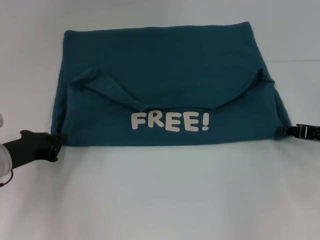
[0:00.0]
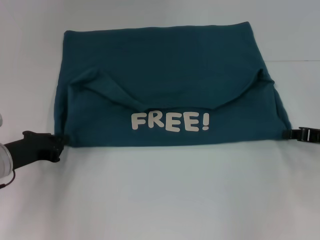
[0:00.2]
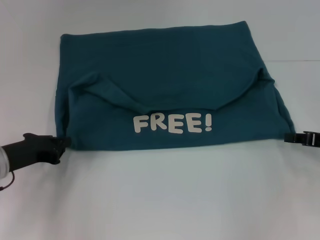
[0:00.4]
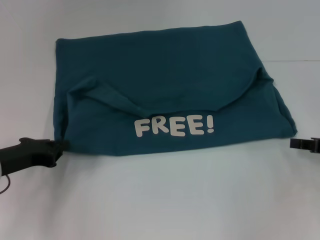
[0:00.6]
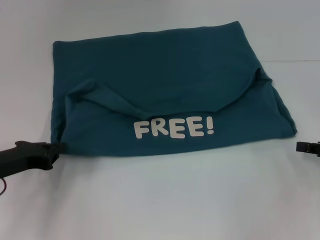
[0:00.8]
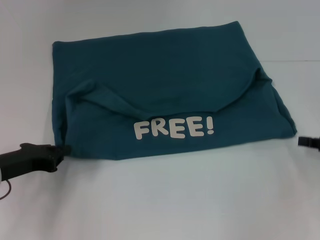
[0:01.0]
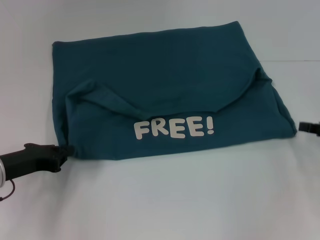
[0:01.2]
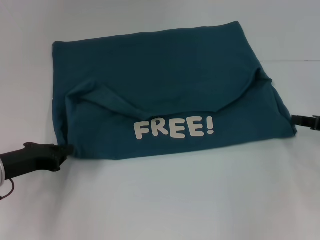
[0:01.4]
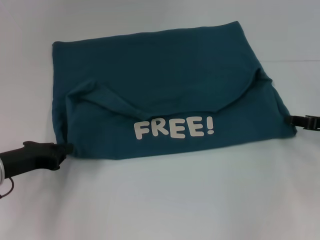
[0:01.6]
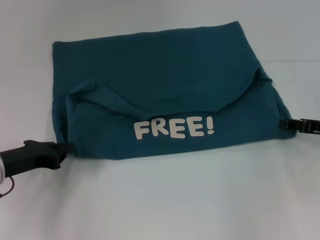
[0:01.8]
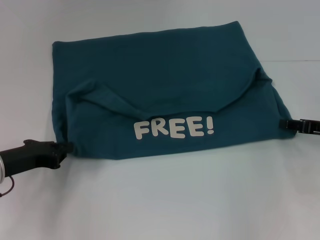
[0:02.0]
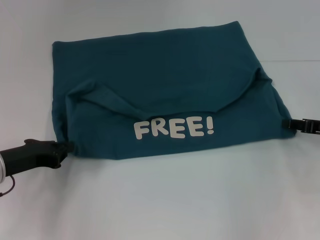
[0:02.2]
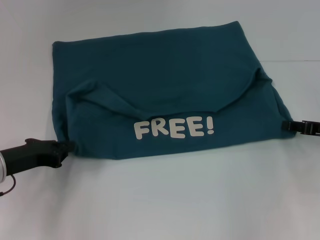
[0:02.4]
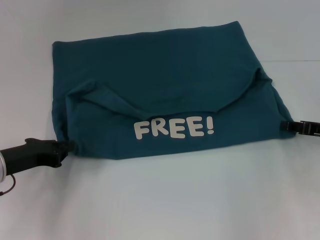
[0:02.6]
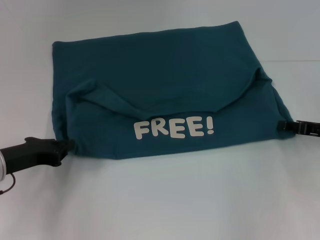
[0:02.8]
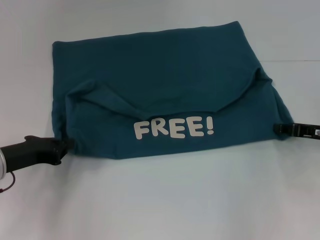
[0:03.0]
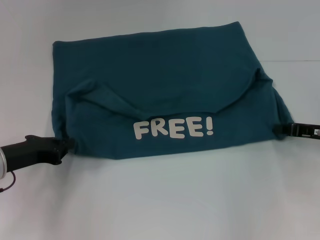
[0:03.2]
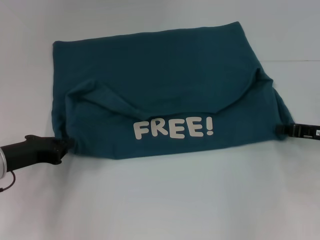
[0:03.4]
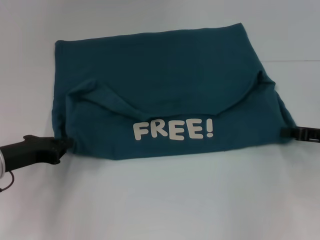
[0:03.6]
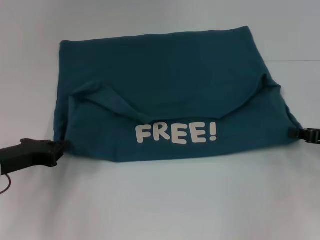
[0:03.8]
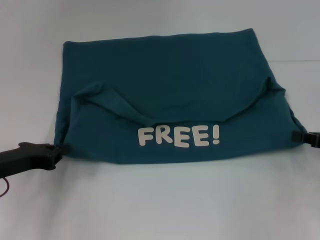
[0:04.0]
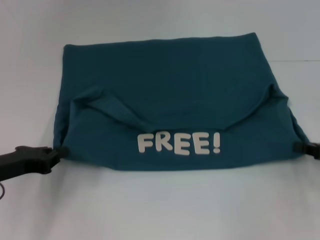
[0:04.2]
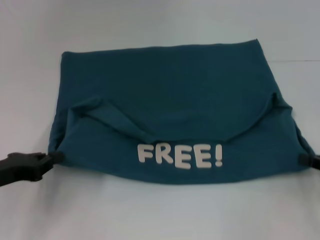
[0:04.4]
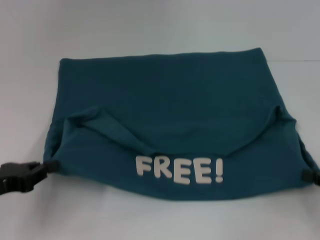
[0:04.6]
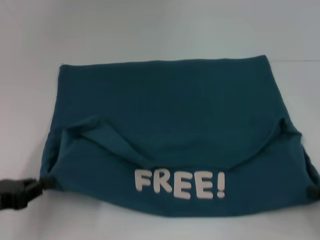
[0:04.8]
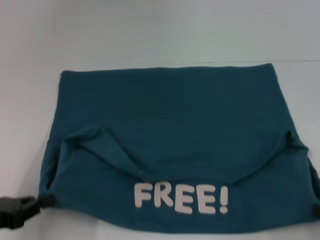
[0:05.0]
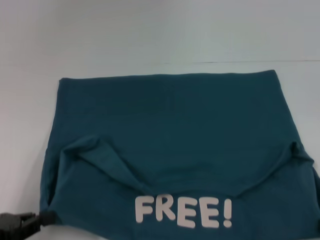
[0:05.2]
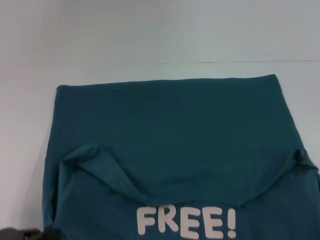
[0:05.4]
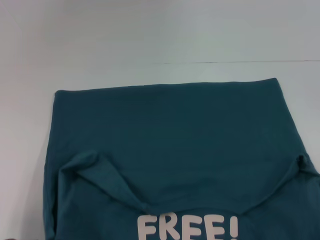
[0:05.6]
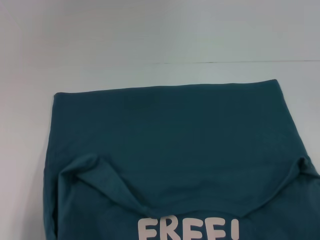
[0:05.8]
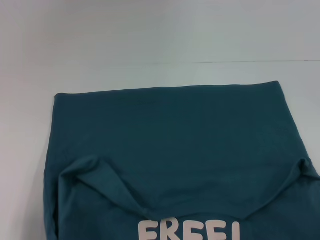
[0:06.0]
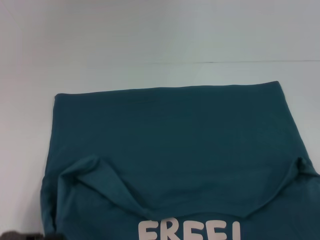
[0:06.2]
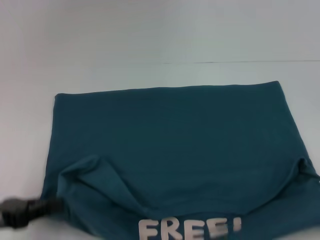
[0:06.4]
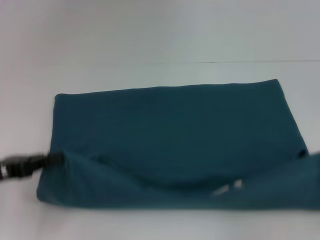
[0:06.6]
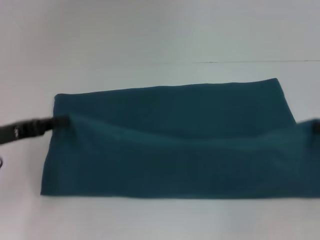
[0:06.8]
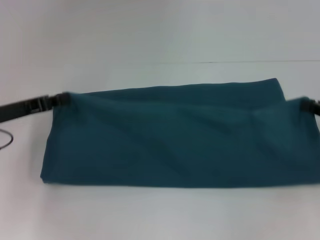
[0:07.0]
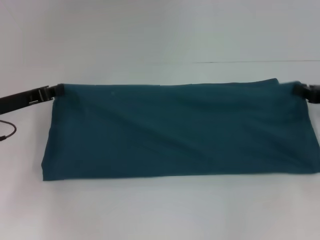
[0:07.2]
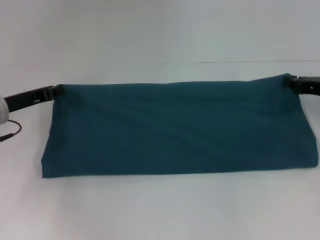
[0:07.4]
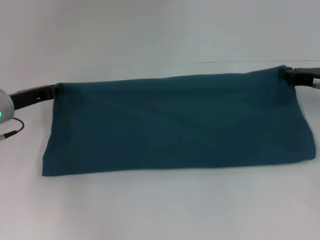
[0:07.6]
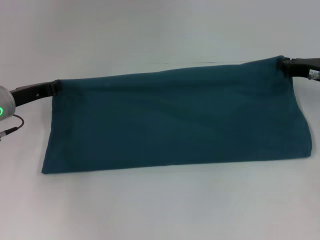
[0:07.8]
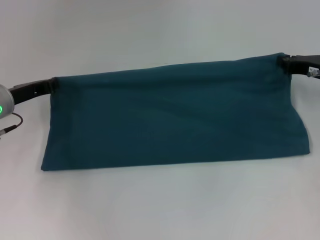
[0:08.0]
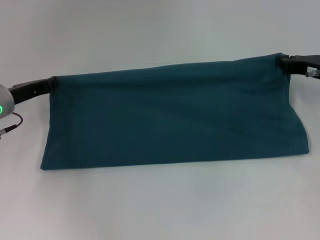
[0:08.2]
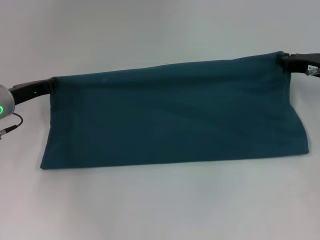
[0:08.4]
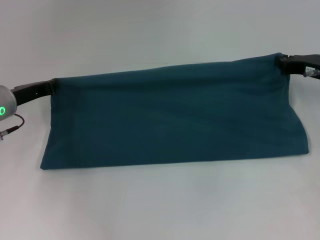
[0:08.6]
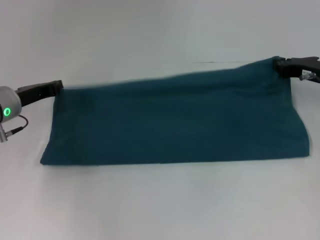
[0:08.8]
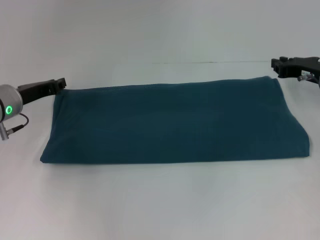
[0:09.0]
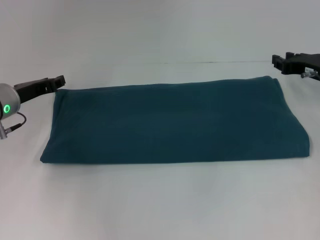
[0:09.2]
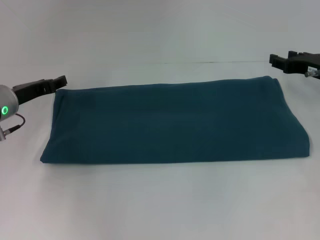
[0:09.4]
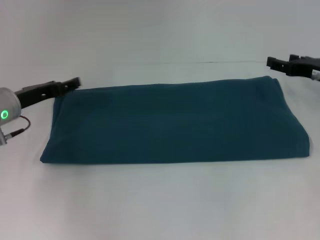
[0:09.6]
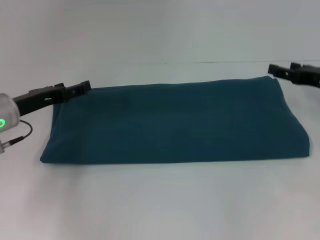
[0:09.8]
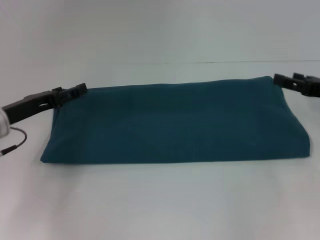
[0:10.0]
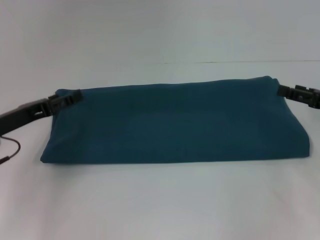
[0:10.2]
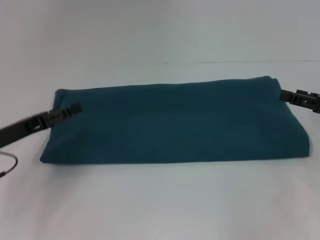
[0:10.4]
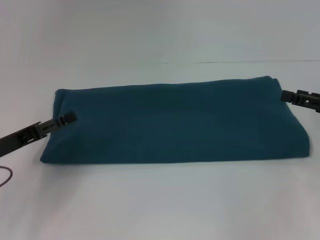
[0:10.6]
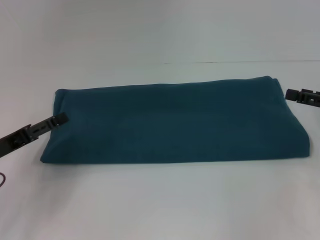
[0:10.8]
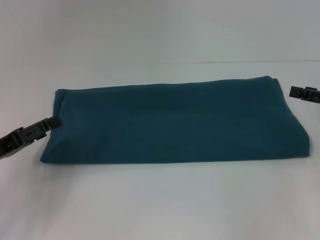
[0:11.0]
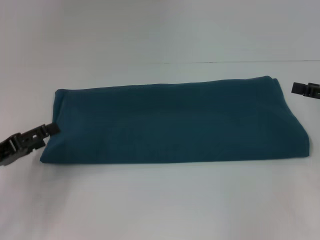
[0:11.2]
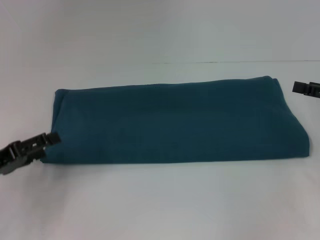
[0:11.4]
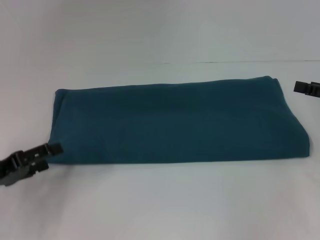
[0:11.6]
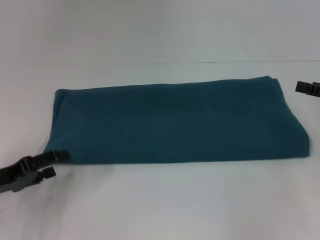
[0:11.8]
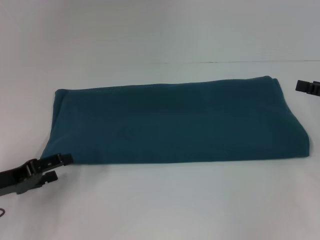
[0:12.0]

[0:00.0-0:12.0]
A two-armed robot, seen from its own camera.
Step, 0:00.0 to 0:05.2: Pull the clothes with your left hand.
Step, 0:00.0 to 0:05.2: Pull the clothes with your right hand.
Step, 0:05.4 to 0:09.6: Fold the clothes to the right.
0:00.0 to 0:03.0: The grippers move only a little.
0:03.0 to 0:04.4: The left gripper shifts by approximately 5 cm. The right gripper travels backward by roughly 10 cm, and closes its fingers.
0:04.4 to 0:06.0: Both grippers move backward, about 10 cm.
0:06.0 to 0:07.6: The grippers both shift forward by some 25 cm.
0:07.6 to 0:09.0: There are only small adjustments of the grippers.
0:09.0 to 0:10.4: The right gripper heads backward and to the right, covering approximately 10 cm, and opens, while the left gripper goes approximately 10 cm backward, and opens.
0:10.4 to 0:12.0: The left gripper changes place by approximately 5 cm.

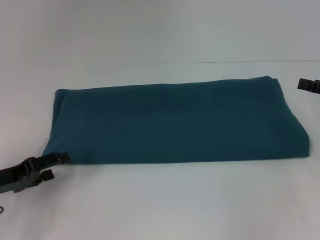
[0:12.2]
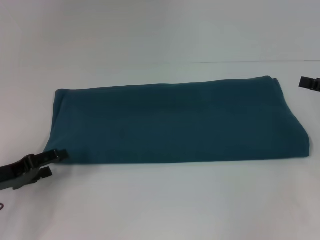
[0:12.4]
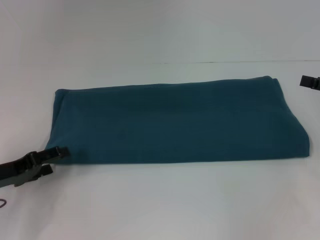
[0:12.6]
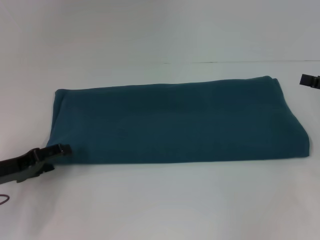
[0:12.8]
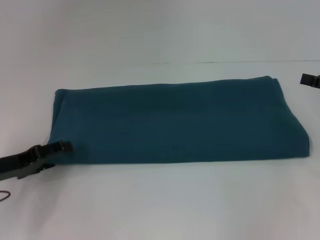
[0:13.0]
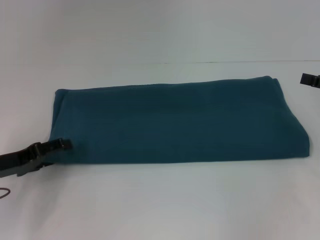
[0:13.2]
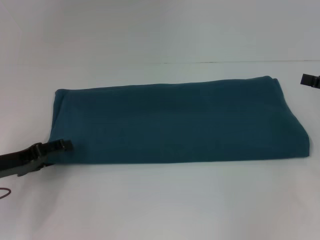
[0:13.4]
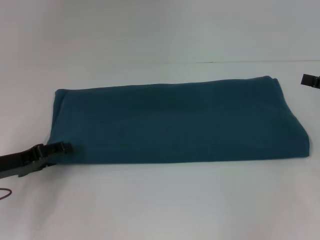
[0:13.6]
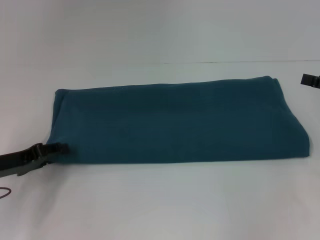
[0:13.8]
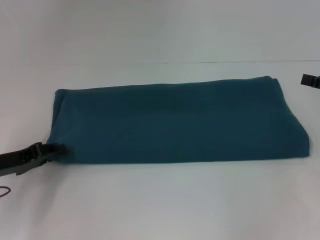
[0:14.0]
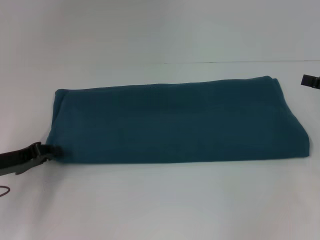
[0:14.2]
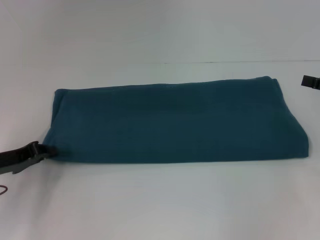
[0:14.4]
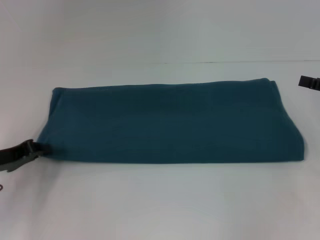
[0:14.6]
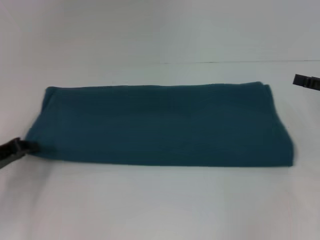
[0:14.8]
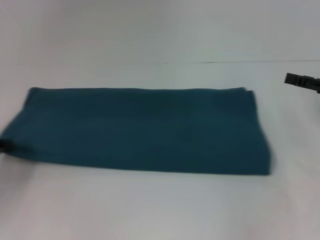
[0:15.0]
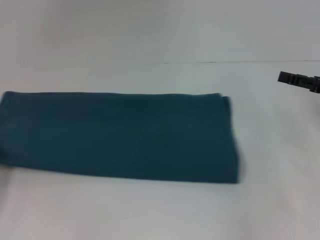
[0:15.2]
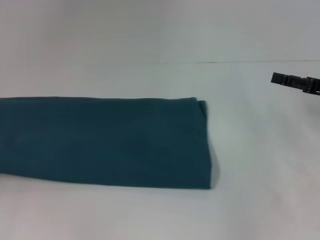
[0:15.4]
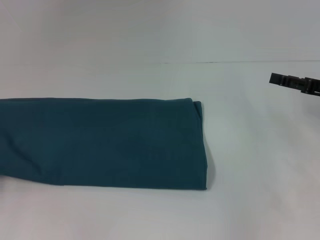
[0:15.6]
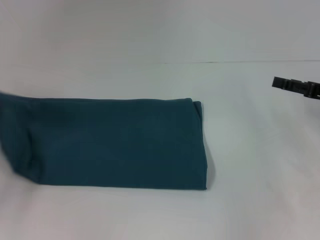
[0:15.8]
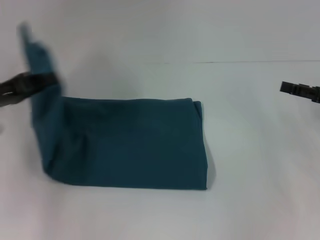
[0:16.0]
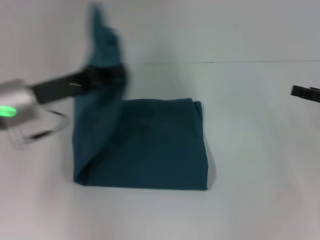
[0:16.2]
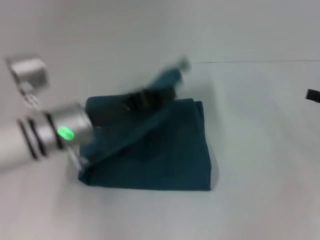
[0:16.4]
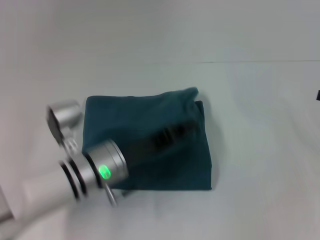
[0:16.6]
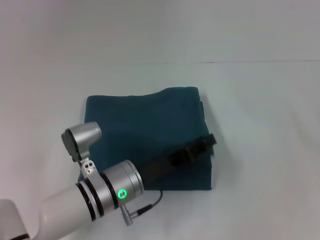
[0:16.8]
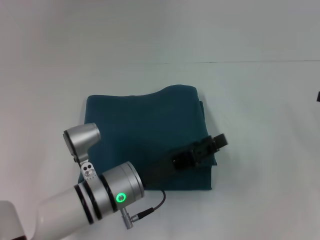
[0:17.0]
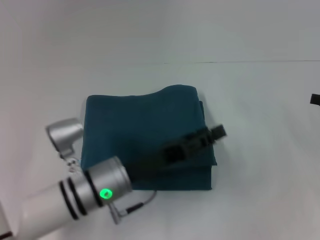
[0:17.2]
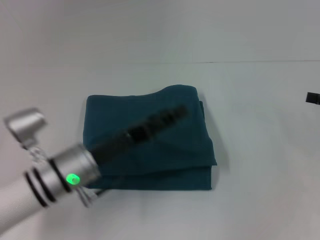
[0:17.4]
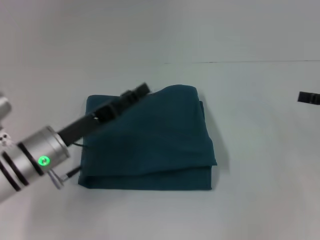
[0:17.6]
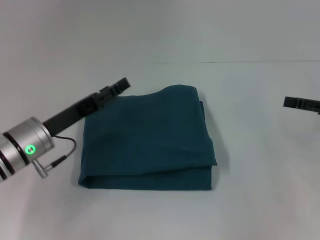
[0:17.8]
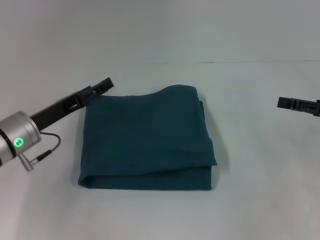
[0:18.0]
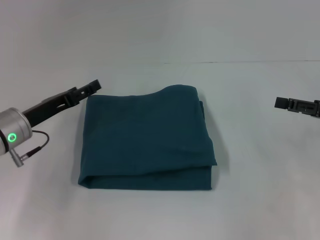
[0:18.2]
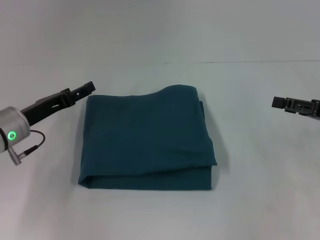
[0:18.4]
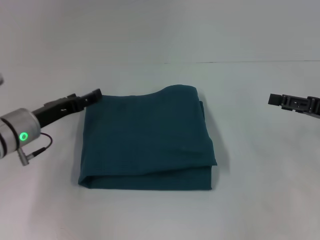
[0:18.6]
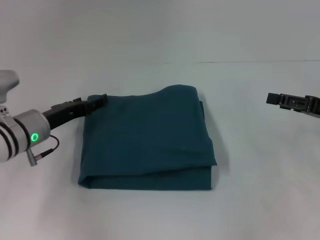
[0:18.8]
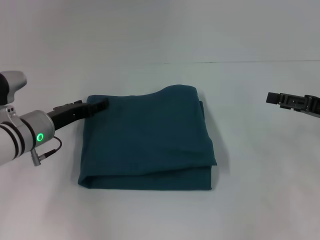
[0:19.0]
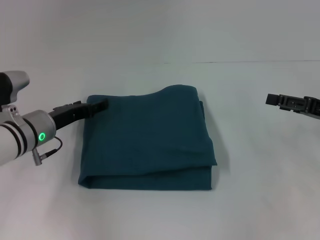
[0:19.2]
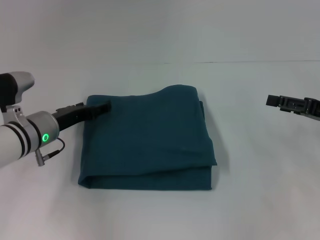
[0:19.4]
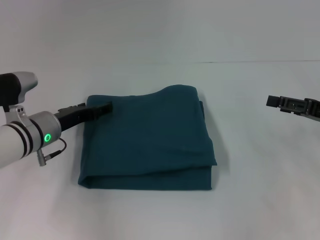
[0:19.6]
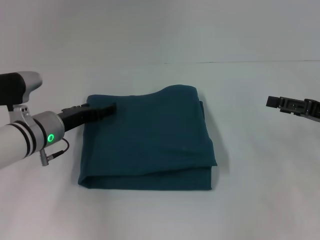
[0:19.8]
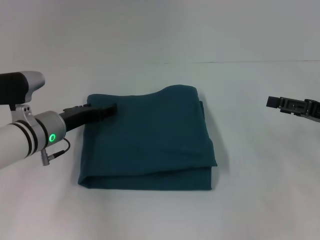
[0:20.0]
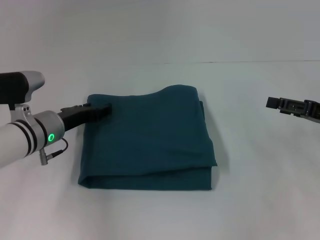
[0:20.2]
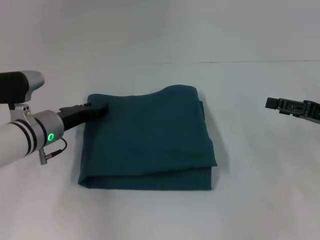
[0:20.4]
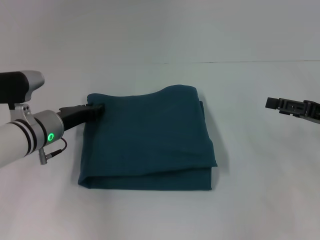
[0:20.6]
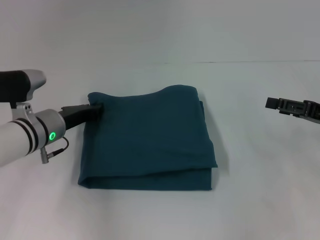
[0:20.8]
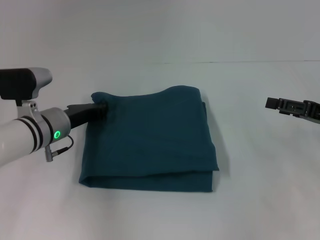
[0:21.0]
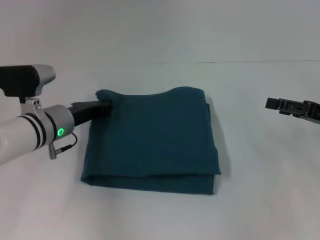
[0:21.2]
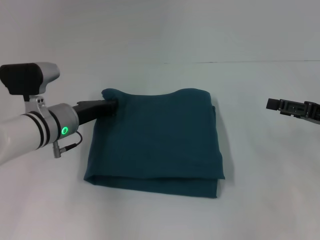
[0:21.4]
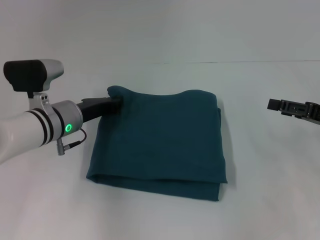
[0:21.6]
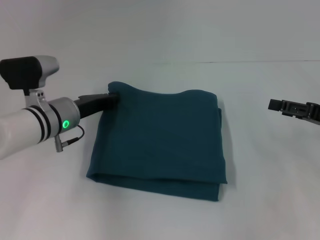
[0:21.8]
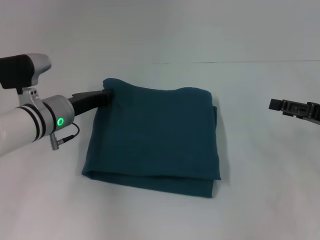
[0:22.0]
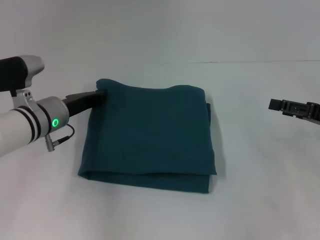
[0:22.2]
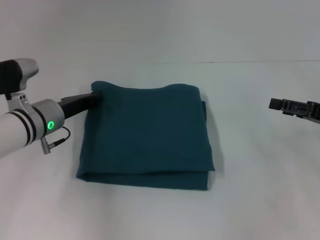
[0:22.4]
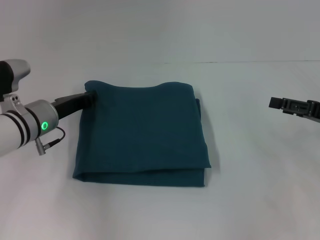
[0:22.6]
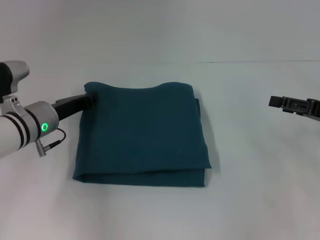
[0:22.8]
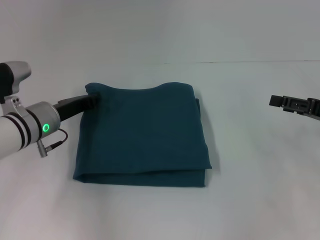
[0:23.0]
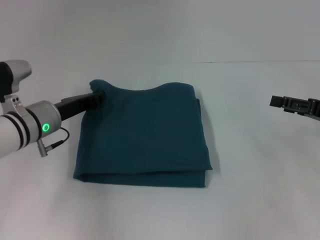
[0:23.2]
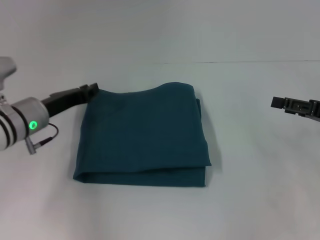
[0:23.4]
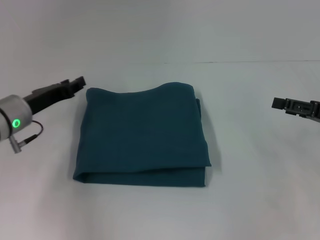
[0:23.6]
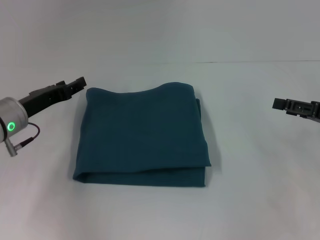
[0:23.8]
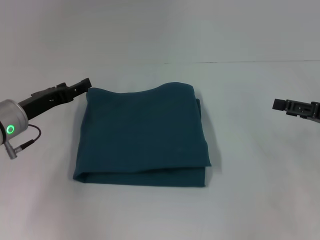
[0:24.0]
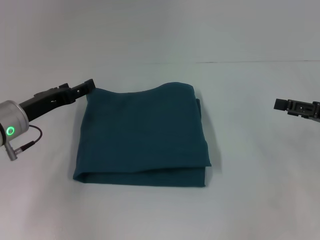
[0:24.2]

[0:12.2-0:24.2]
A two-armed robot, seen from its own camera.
Step, 0:12.2 to 0:17.4: Fold the clothes to the left.
0:12.2 to 0:13.8: The grippers stay close to where they were, moving slightly.
0:13.8 to 0:15.2: The left gripper heads to the left, covering some 10 cm, and closes its fingers.
0:15.2 to 0:16.6: The right gripper moves to the right, some 5 cm; the left gripper is displaced to the right by some 30 cm.
0:16.6 to 0:18.2: The right gripper moves to the left, some 5 cm; the left gripper is displaced to the left by some 15 cm, and opens up.
0:18.2 to 0:19.8: The left gripper shifts by some 5 cm.
0:19.8 to 0:21.2: The left gripper closes.
0:21.2 to 0:22.6: The grippers make only small movements.
0:22.6 to 0:24.2: The left gripper moves about 5 cm, and opens.
